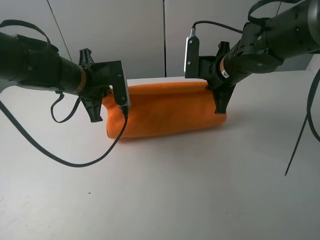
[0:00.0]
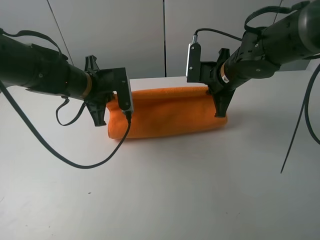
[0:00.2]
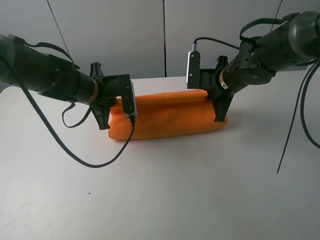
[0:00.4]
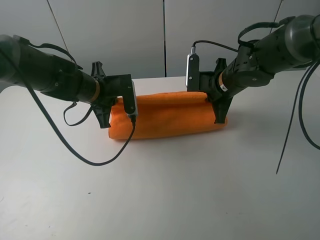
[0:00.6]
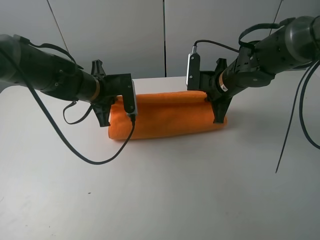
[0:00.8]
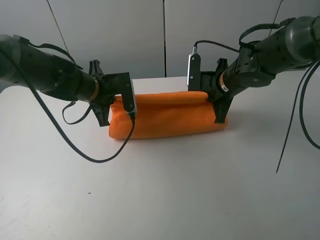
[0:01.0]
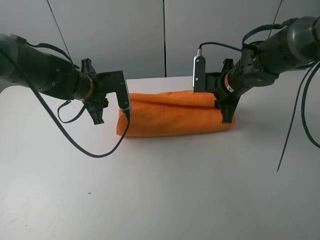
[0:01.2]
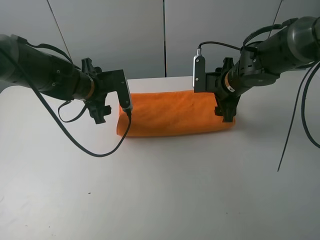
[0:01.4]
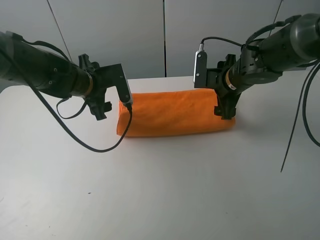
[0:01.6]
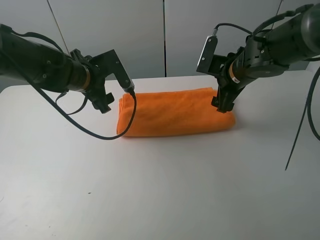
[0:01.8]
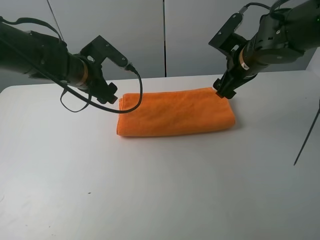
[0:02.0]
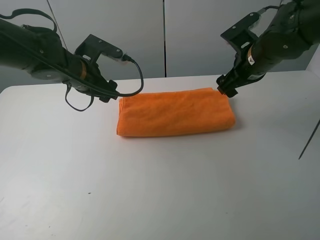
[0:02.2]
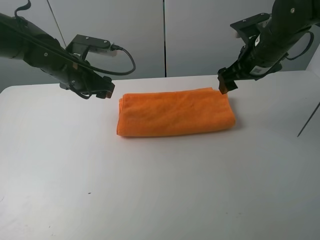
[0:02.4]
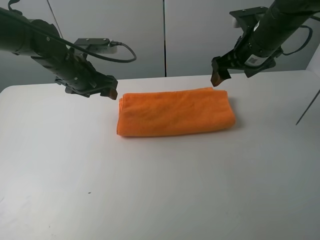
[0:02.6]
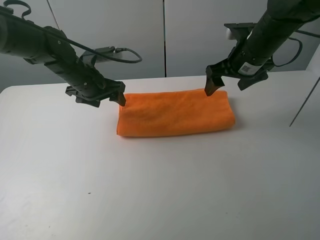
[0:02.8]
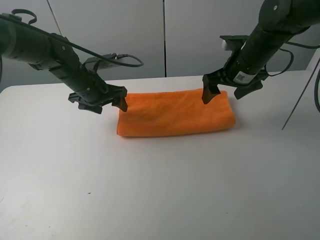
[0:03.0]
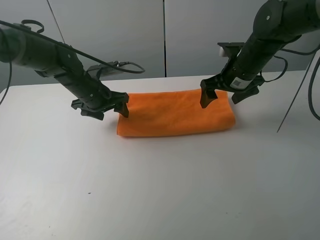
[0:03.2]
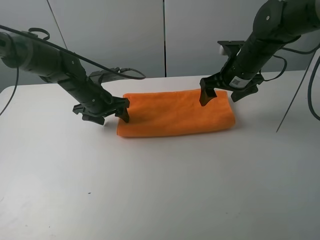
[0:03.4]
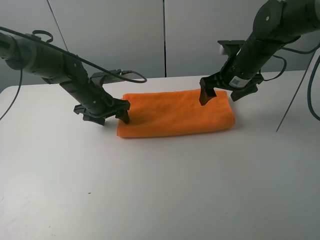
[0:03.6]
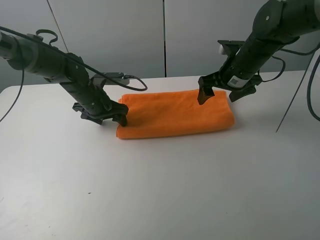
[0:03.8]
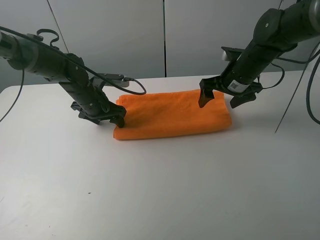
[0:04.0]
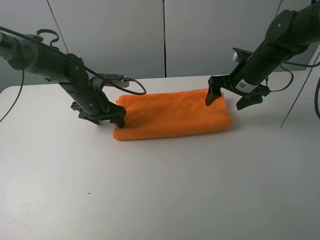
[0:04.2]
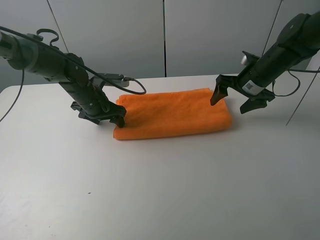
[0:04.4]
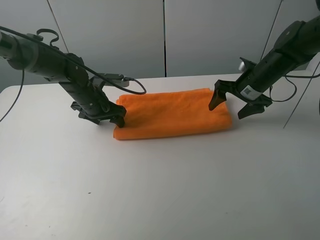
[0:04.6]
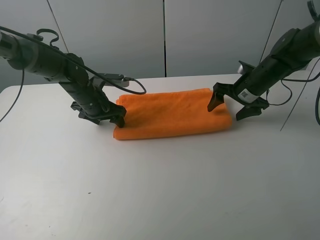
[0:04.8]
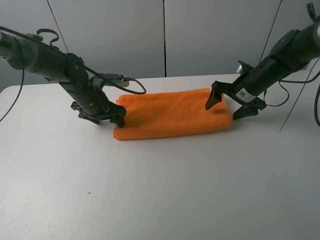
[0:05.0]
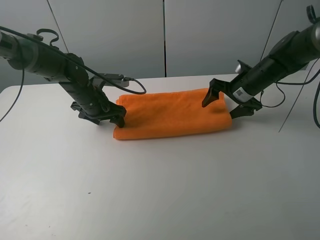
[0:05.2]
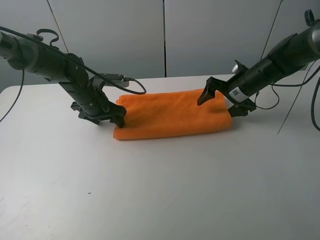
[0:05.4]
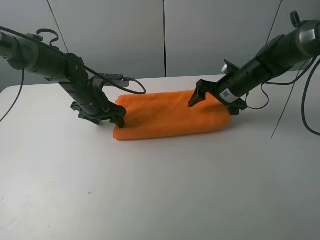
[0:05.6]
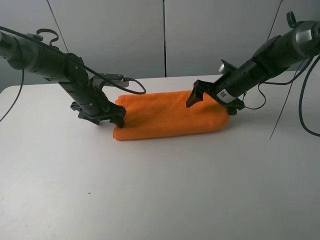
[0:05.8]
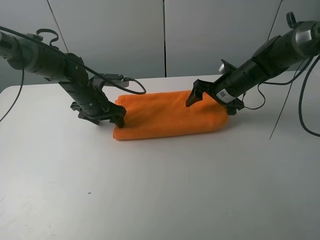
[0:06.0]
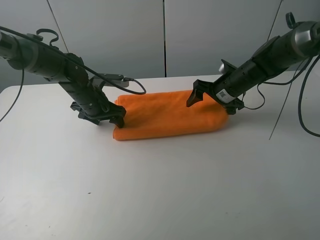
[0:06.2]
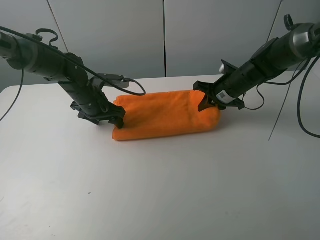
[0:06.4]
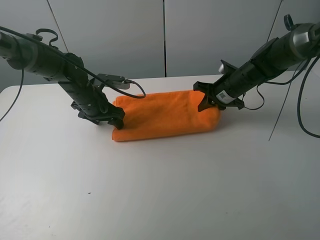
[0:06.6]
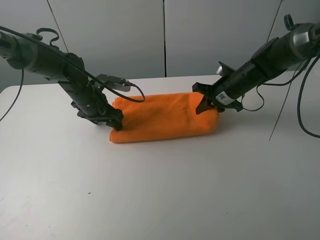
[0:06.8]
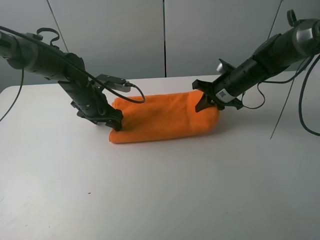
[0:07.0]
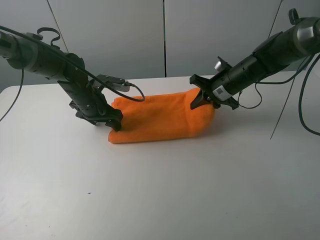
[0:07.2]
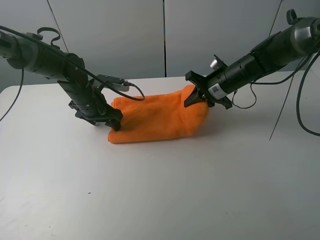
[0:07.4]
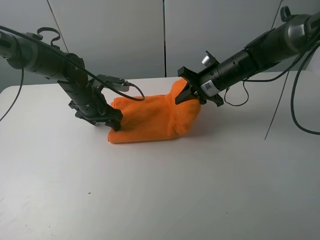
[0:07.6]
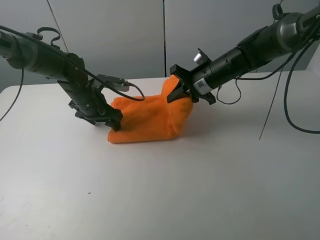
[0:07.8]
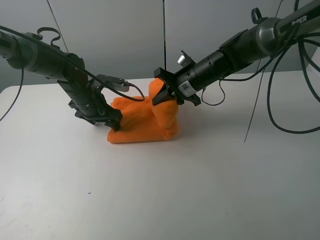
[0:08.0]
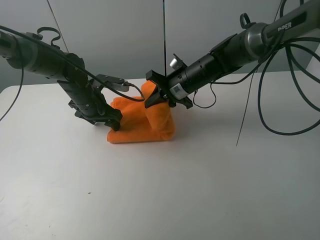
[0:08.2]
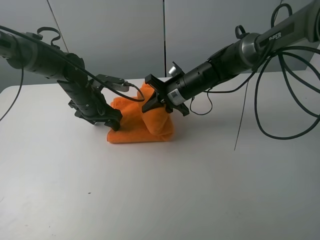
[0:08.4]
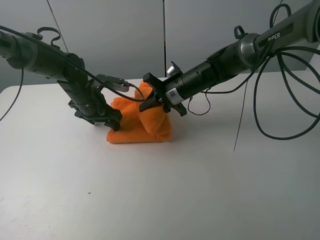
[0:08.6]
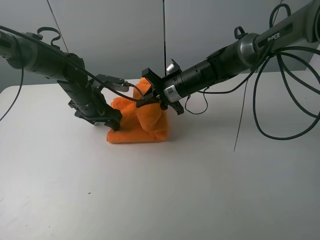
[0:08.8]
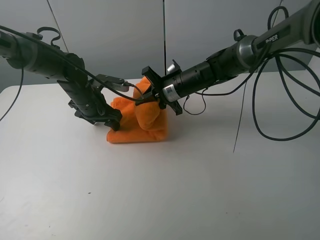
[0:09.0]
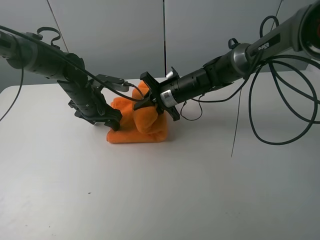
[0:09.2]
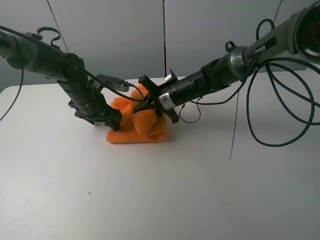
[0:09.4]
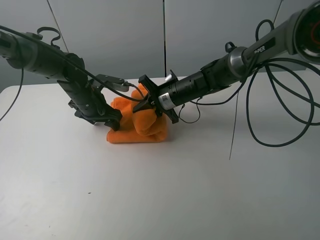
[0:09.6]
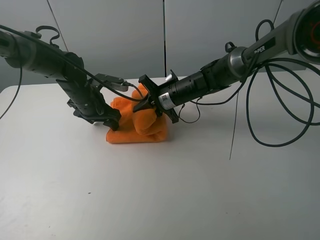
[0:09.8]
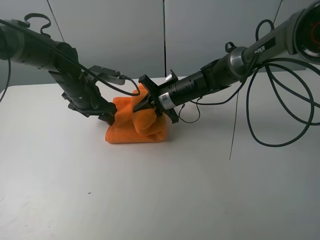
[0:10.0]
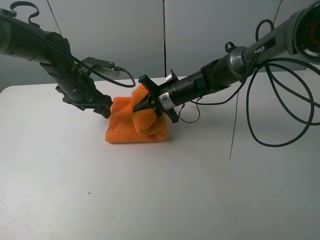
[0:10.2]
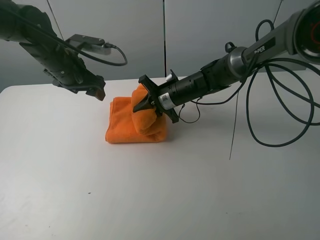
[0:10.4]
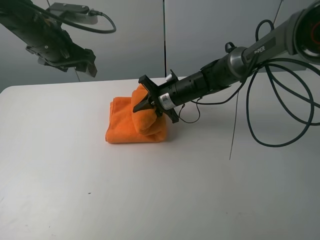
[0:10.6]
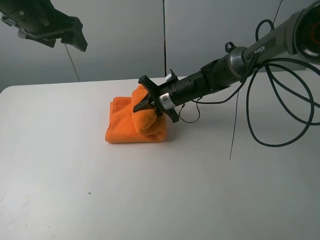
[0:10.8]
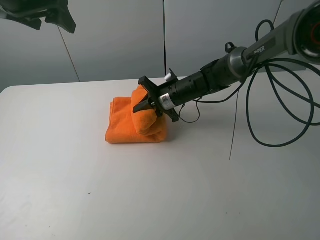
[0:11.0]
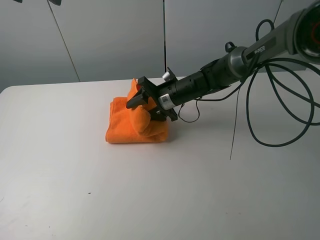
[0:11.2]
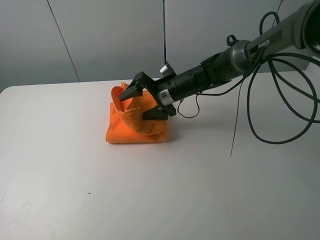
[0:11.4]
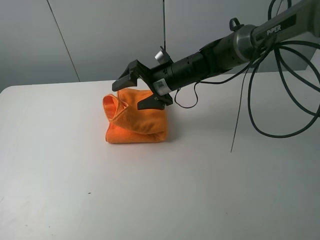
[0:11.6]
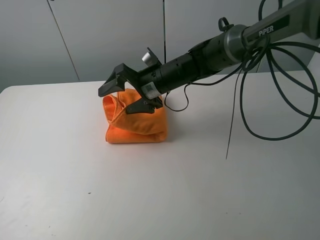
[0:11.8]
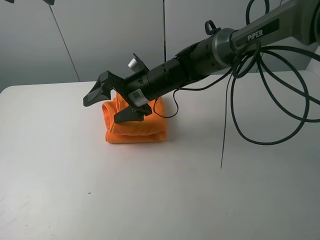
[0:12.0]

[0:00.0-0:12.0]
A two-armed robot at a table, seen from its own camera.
Task of the whole recording: fold the towels on the table.
Step, 0:01.8 to 0:03.8: Press on the orange towel with the left gripper.
0:00.0 to 0:01.6: The left gripper opens up; the right gripper opens up.
0:03.0 to 0:04.4: The right gripper is displaced to the right and downward by approximately 5 cm.
0:04.4 to 0:06.0: The right gripper shifts by about 5 cm.
0:06.0 to 0:07.6: The right gripper changes place by roughly 5 cm, and closes up.
0:07.6 to 0:09.0: The right gripper moves to the left, about 10 cm.
0:09.0 to 0:10.4: The left gripper shifts roughly 10 cm upward.
0:10.4 to 0:12.0: The right gripper goes about 10 cm to the left, upward and backward, and opens. Meanwhile the left gripper moves upward, some 20 cm.

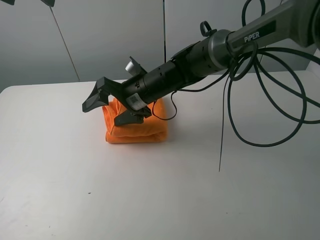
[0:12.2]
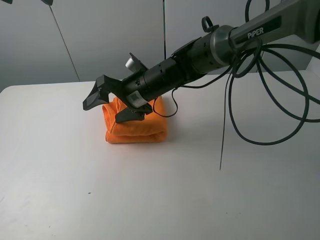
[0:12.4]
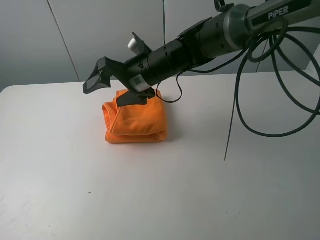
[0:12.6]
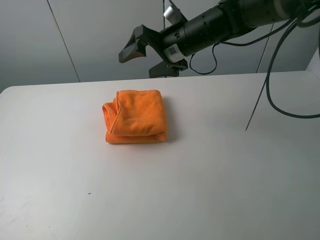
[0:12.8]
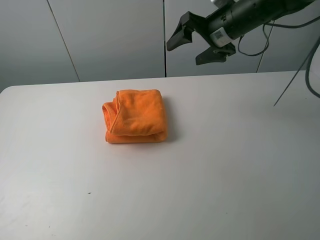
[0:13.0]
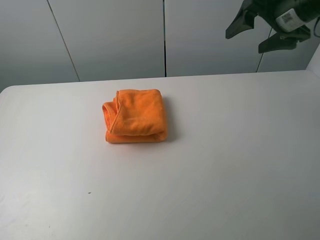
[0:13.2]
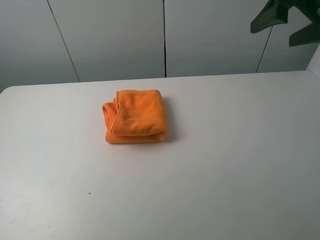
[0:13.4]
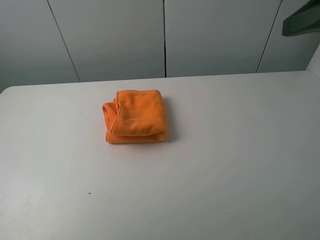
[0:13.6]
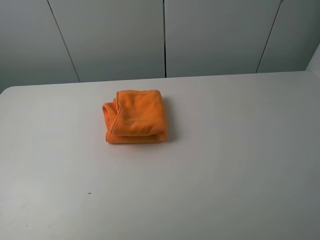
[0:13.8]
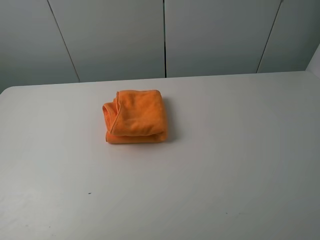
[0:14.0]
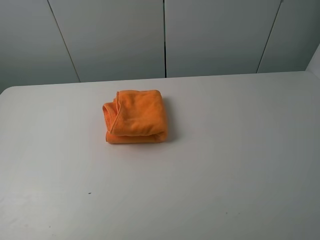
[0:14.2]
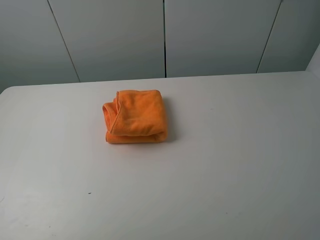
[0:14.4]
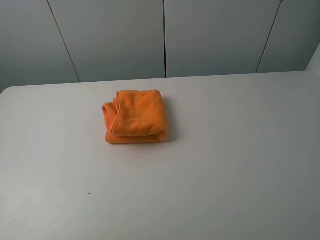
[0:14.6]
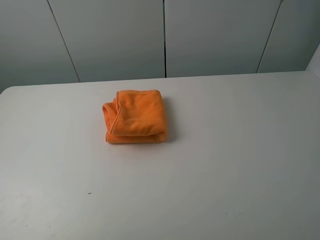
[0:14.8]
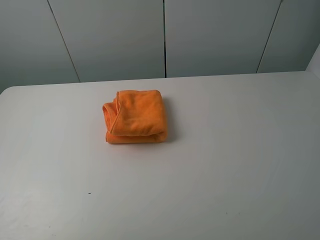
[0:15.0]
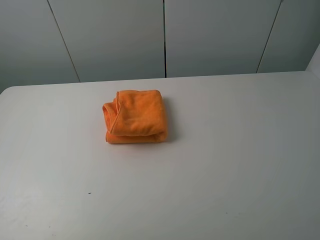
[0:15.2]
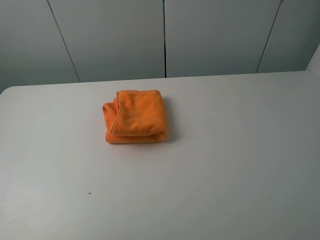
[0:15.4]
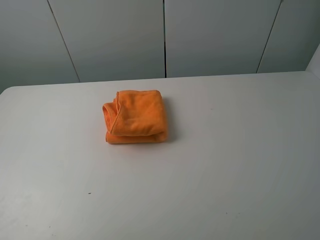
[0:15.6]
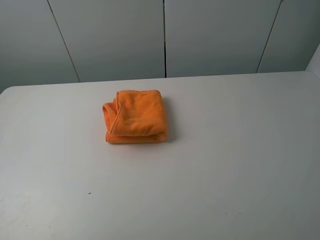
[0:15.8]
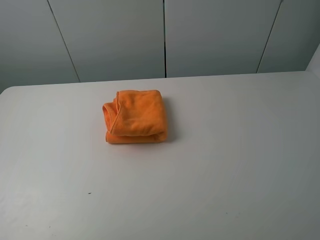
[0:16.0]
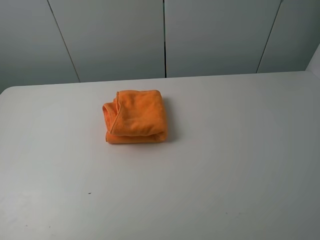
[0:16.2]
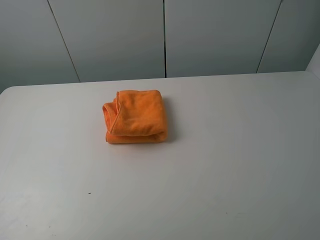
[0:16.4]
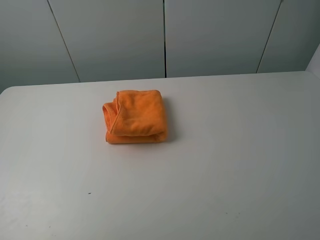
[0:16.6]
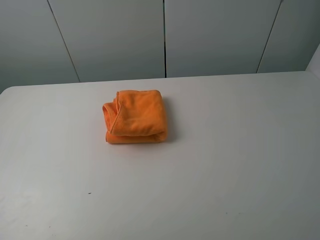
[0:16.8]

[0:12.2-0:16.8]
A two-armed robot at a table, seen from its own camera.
Task of the whole recording: fold the towels on the table.
0:12.2 to 0:13.8: The left gripper shifts approximately 30 cm backward. Meanwhile the right gripper heads to the right, backward and upward, covering about 40 cm.
